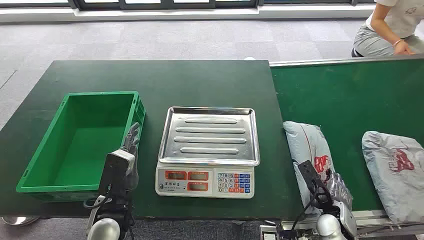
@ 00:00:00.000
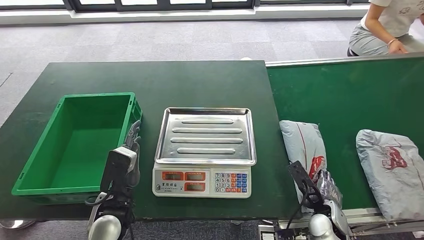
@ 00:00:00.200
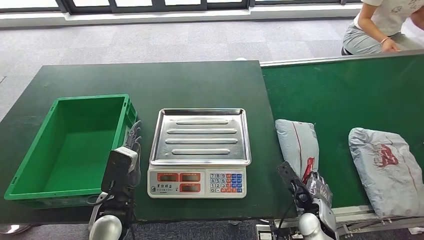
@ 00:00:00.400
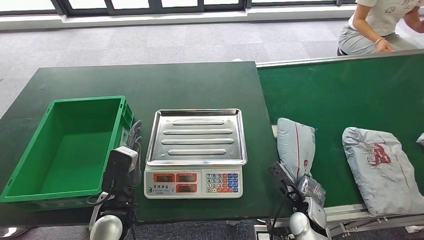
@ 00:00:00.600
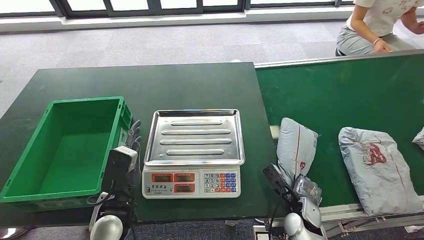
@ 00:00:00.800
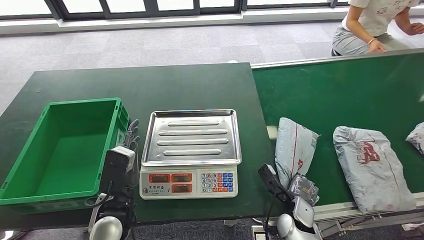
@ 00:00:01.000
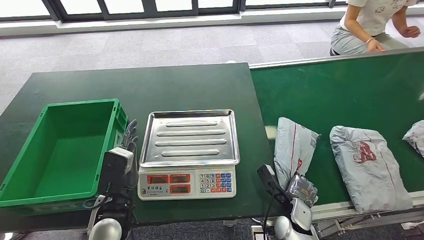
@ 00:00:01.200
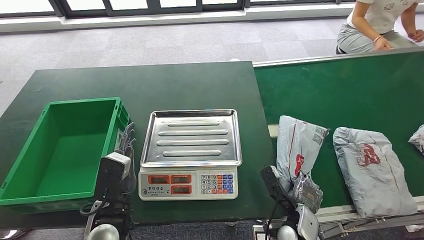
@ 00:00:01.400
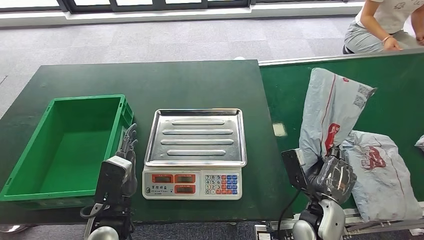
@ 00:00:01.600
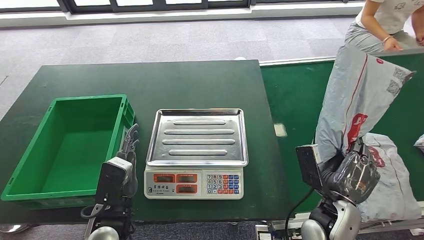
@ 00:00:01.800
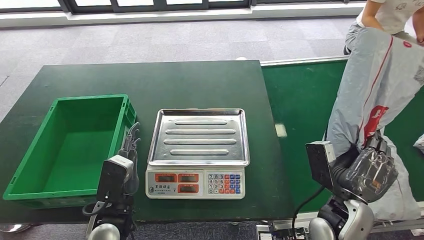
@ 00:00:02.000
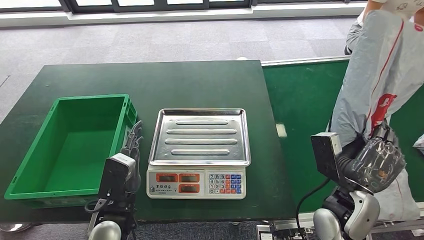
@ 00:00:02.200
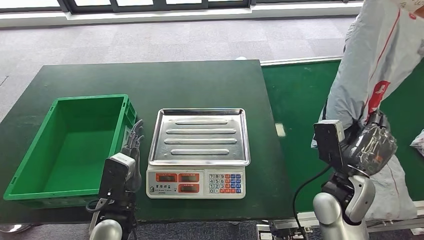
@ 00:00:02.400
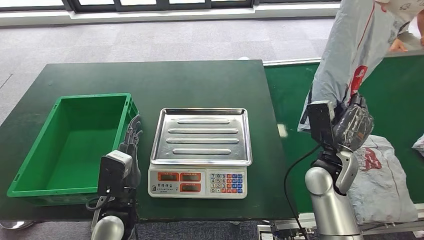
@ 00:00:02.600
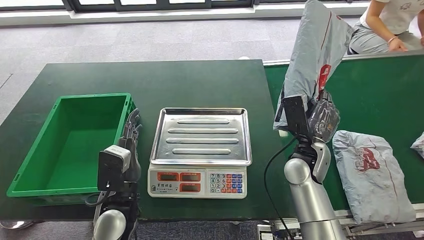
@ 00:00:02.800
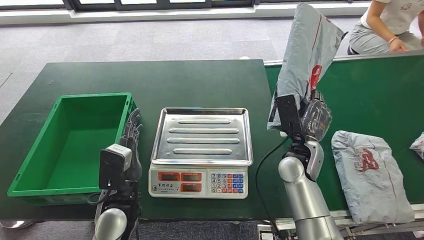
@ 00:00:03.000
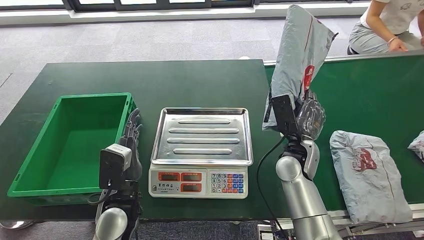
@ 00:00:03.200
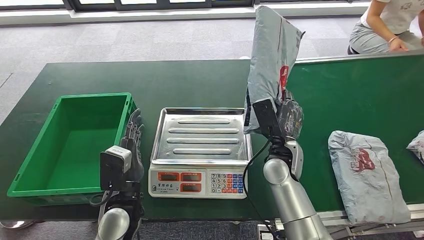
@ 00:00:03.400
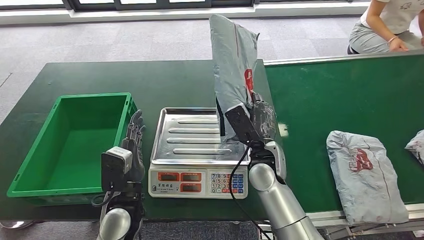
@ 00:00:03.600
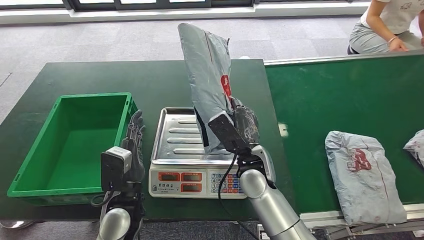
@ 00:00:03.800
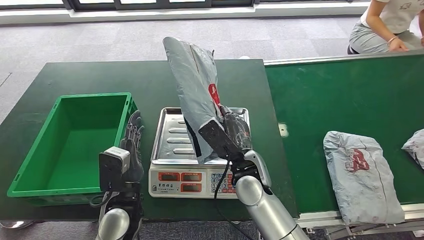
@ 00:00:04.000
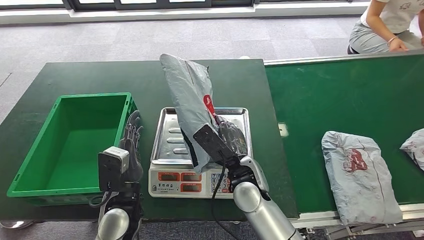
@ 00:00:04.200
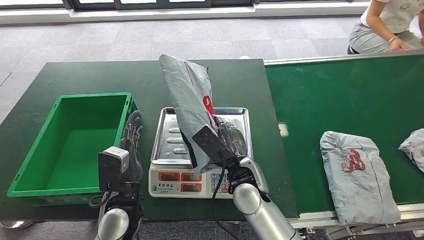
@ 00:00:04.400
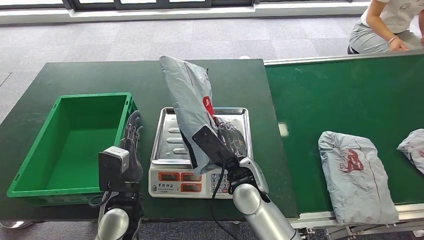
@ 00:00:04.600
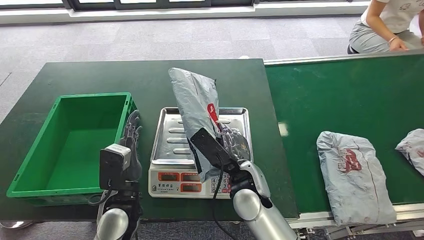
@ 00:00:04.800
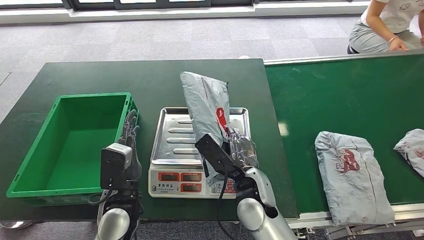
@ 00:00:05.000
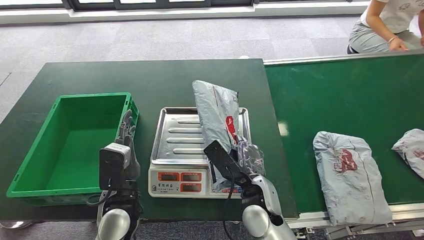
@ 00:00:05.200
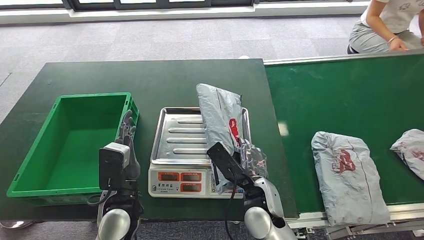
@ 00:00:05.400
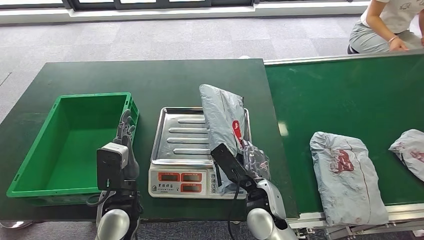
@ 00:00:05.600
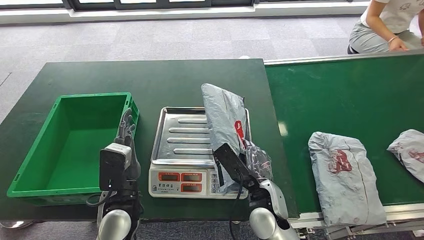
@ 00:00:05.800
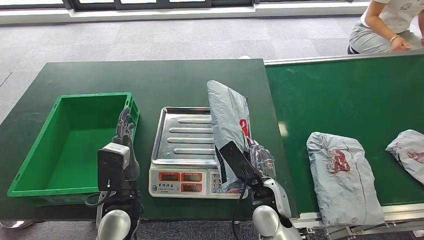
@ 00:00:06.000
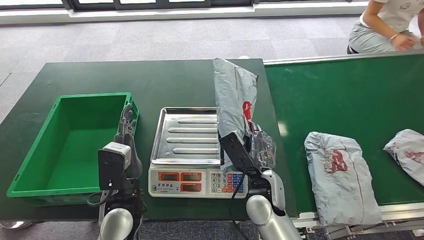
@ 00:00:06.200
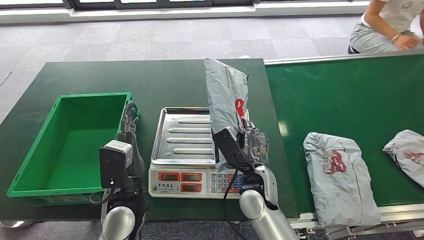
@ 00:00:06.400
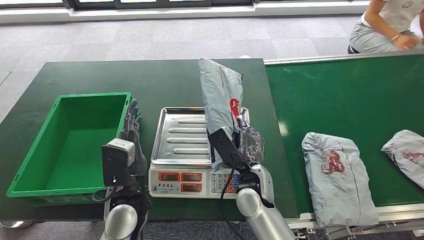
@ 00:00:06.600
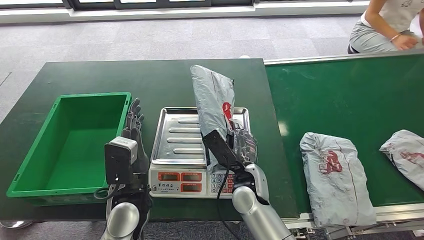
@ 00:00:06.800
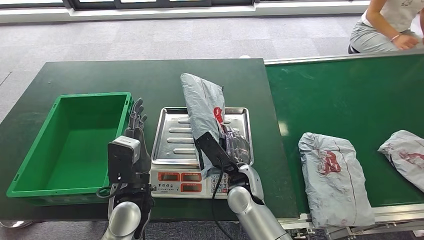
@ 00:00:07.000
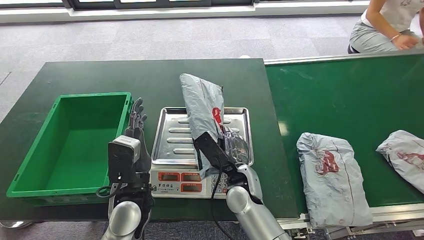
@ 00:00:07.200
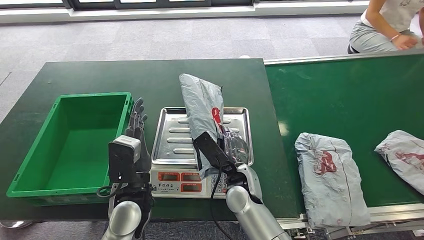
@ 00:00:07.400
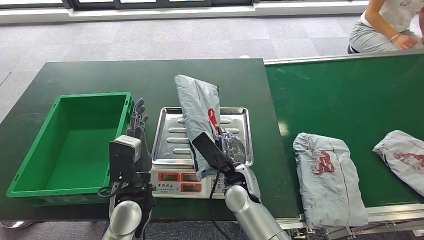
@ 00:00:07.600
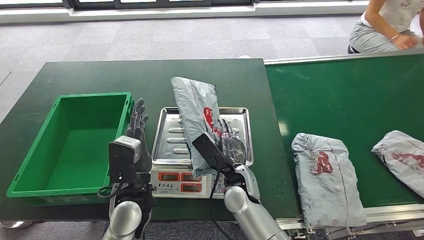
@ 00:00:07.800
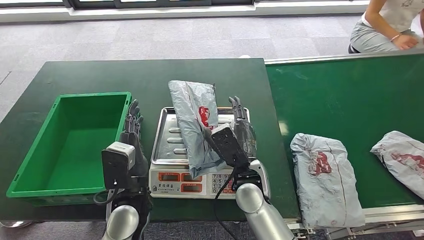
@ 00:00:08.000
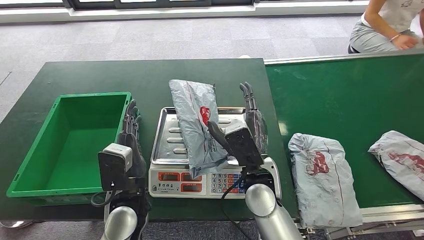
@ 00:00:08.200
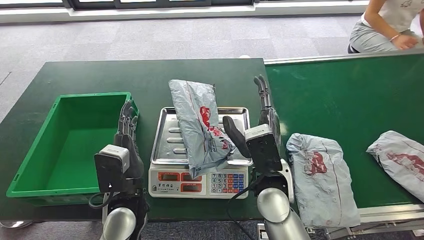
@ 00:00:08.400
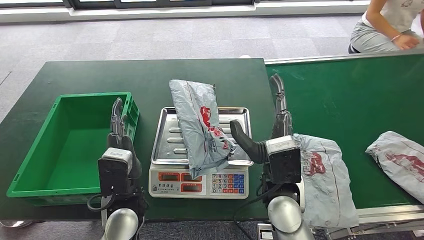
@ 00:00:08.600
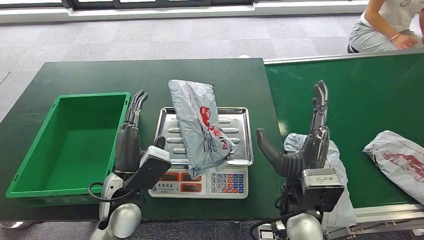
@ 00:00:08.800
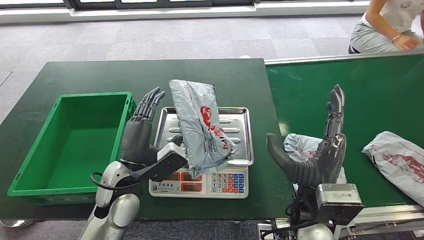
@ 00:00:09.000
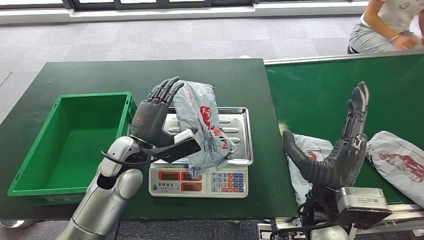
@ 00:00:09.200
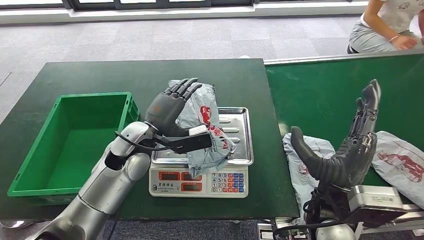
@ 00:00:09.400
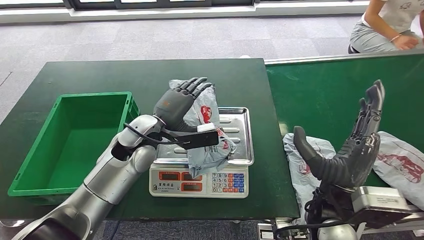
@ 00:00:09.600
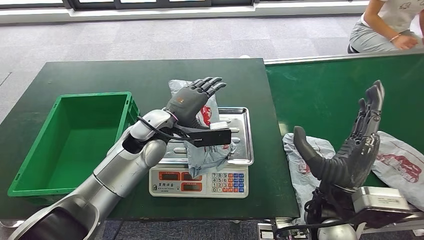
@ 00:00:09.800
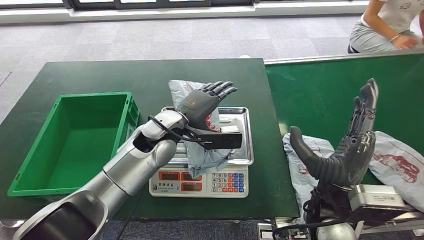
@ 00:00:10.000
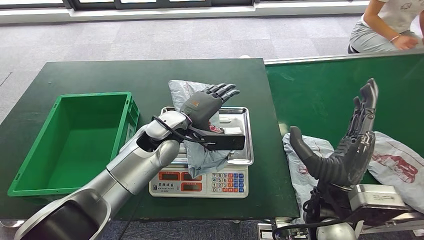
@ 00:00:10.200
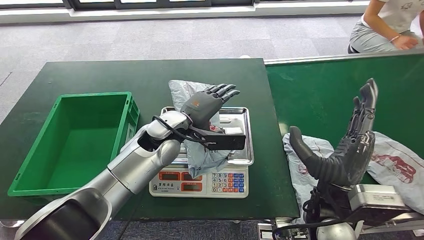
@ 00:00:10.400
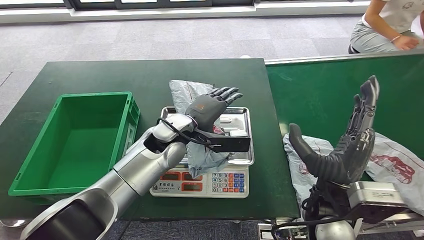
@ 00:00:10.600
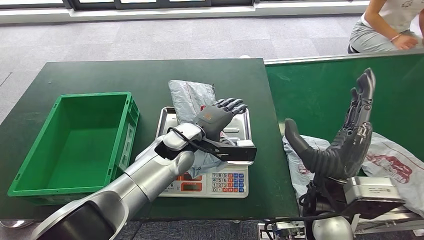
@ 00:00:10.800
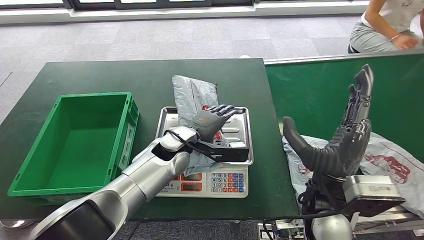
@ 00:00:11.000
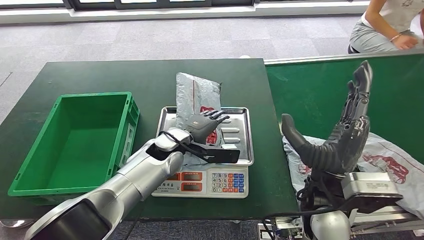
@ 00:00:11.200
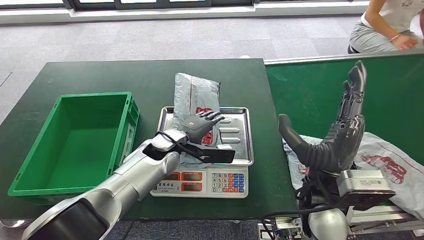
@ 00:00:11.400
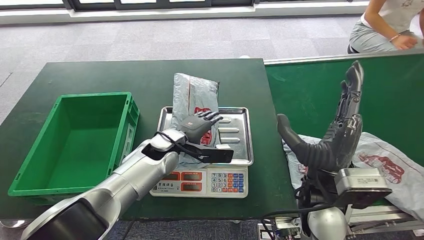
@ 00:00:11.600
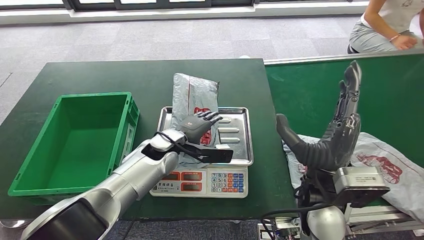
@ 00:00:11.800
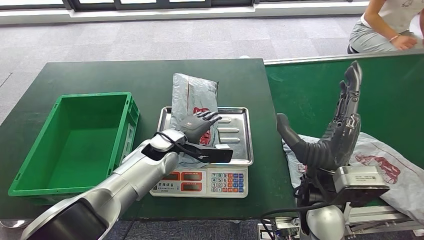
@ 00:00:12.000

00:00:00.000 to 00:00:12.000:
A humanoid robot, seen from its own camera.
Step, 00:00:00.000 to 00:00:03.400: Take the parcel off the conveyor belt.
Step, 00:00:03.600 to 00:00:10.200: Place the parcel onto the inbound machine.
00:00:04.400 to 00:00:06.000: The right hand moves about 5 cm.

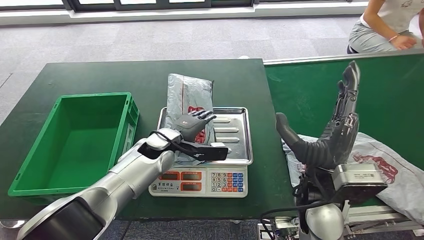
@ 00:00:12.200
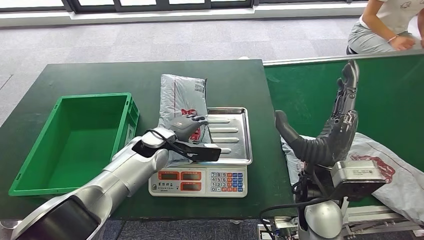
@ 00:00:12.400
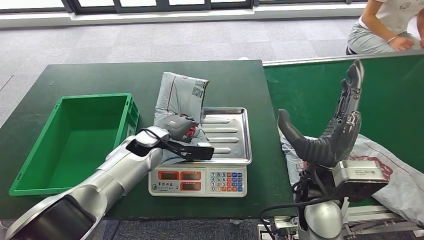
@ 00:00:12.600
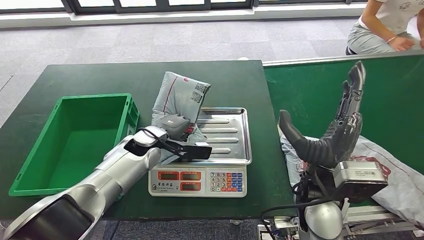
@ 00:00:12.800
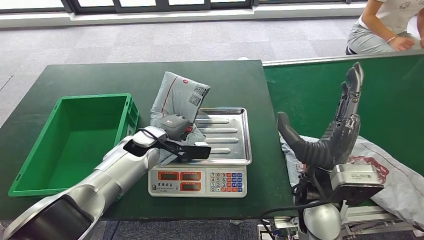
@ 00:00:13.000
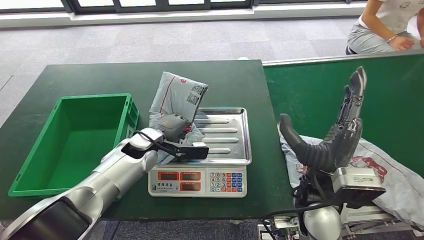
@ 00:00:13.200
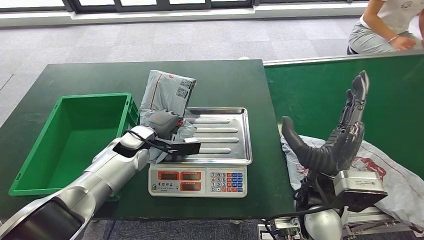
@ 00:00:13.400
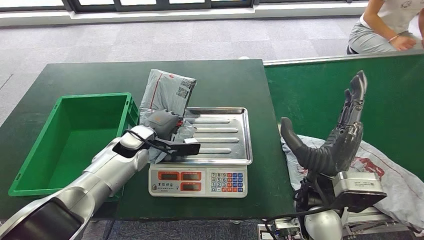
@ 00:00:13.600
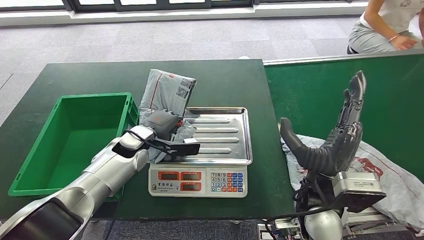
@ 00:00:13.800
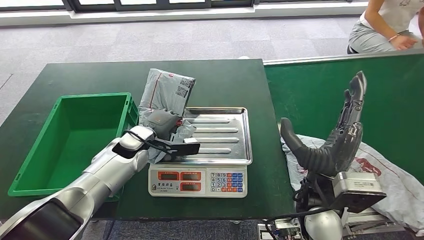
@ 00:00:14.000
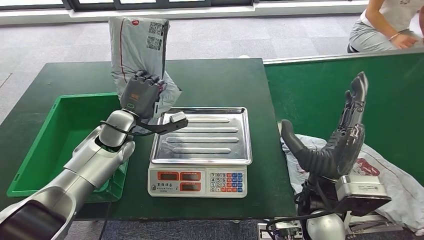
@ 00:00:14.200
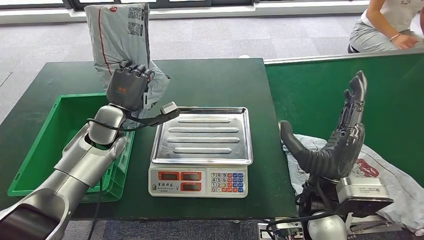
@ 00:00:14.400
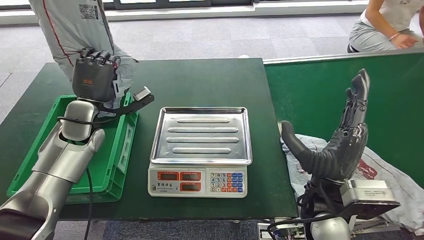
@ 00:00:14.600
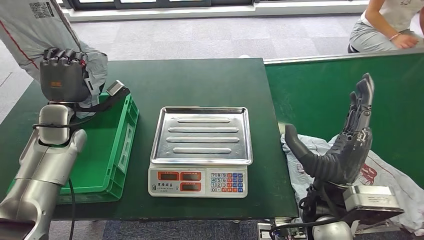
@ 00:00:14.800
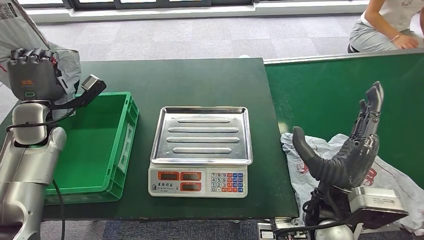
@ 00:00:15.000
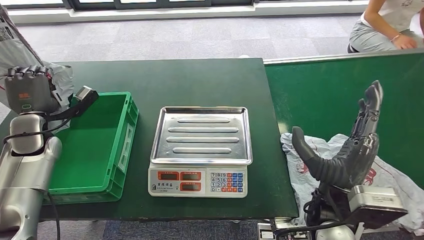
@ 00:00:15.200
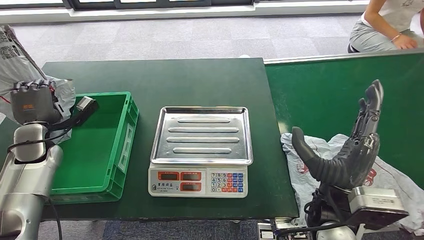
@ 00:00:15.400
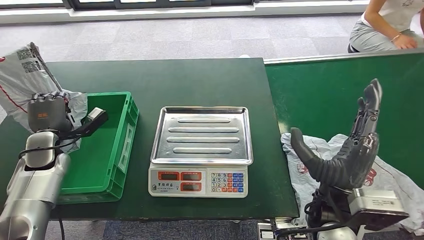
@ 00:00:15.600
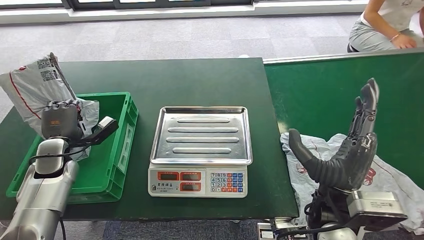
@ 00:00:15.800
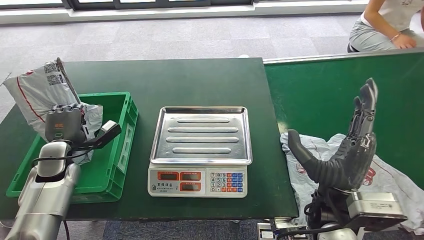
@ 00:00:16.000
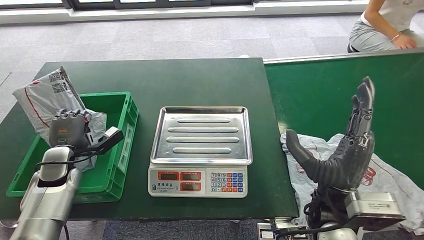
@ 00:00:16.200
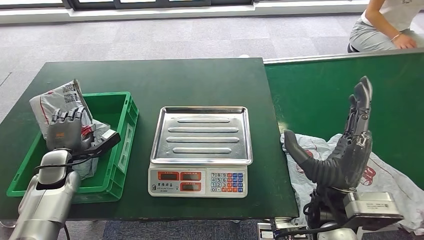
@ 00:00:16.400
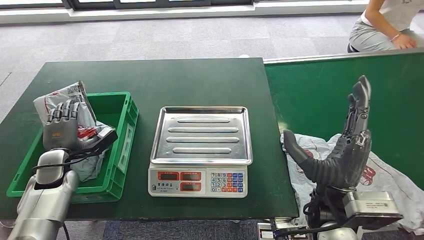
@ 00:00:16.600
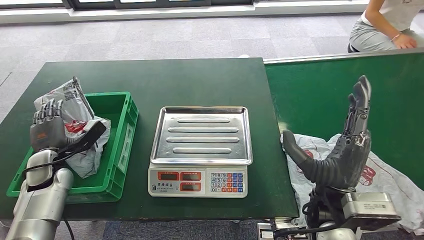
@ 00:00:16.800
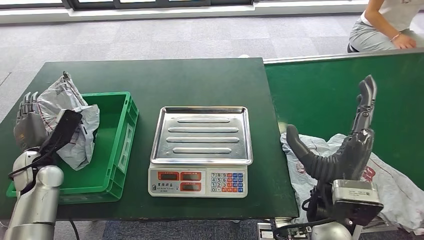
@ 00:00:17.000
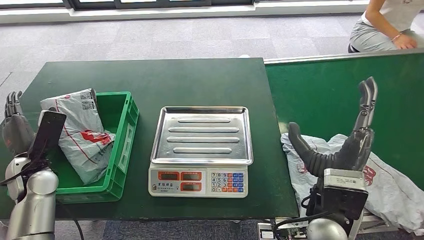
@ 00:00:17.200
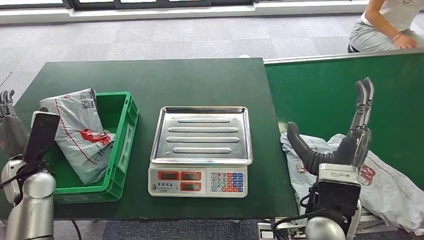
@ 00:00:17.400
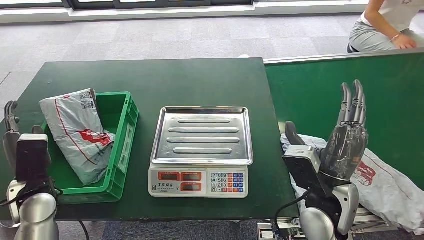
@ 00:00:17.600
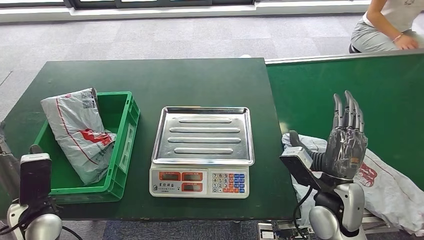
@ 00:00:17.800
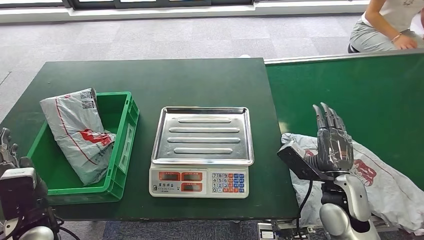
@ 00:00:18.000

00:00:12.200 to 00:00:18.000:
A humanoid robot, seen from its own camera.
Step, 00:00:12.200 to 00:00:14.600: Pick up the parcel from the inbound machine.
Step, 00:00:15.000 to 00:00:18.000: Put the parcel inside the courier box.
00:00:16.600 to 00:00:18.000: The left hand shifts approximately 15 cm backward. Meanwhile the right hand shifts approximately 10 cm to the right and downward.
